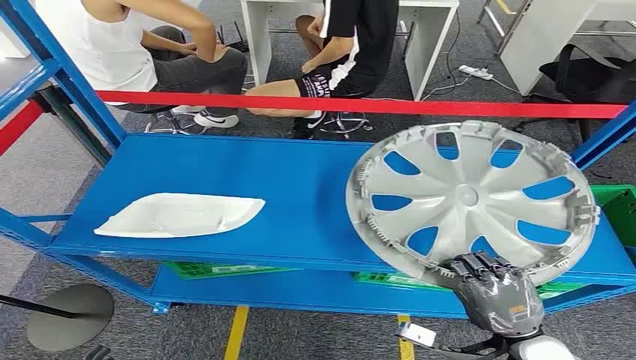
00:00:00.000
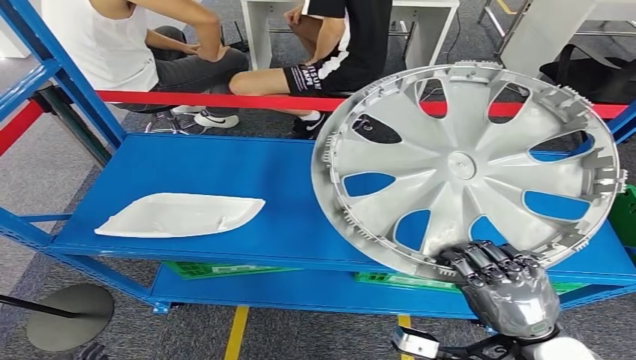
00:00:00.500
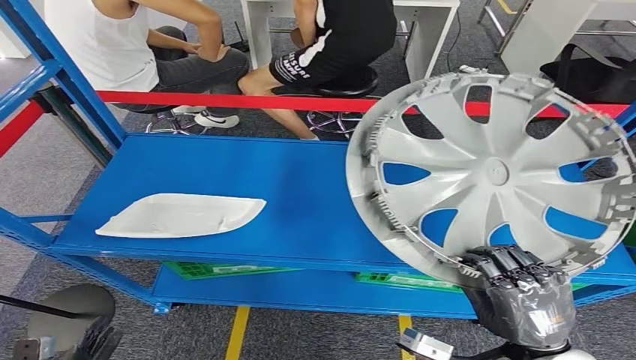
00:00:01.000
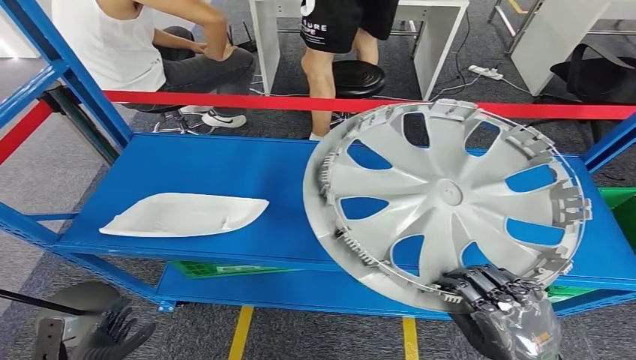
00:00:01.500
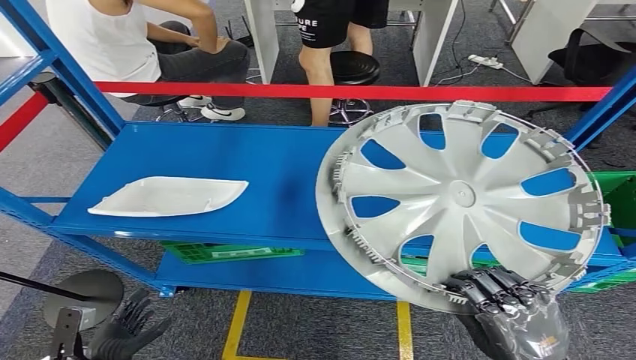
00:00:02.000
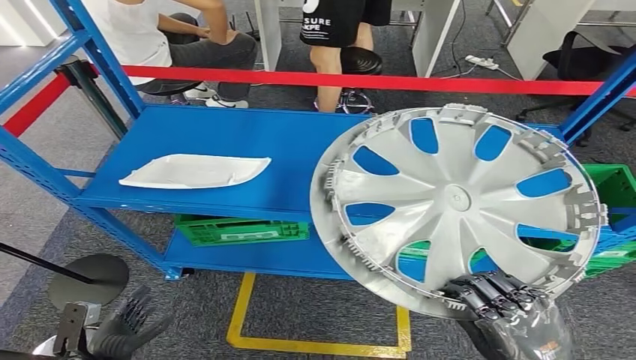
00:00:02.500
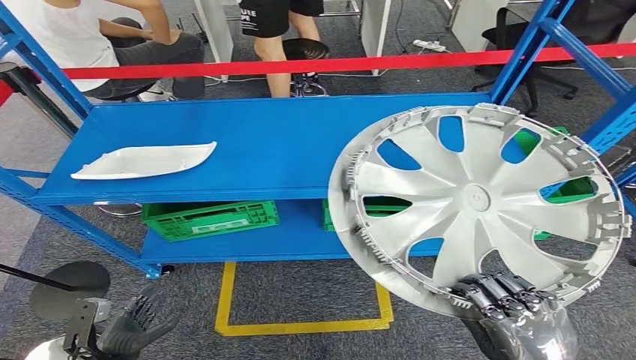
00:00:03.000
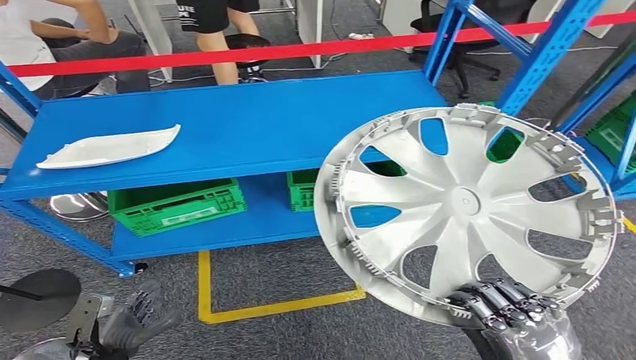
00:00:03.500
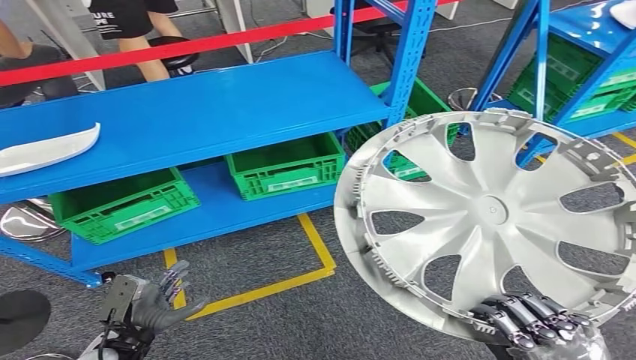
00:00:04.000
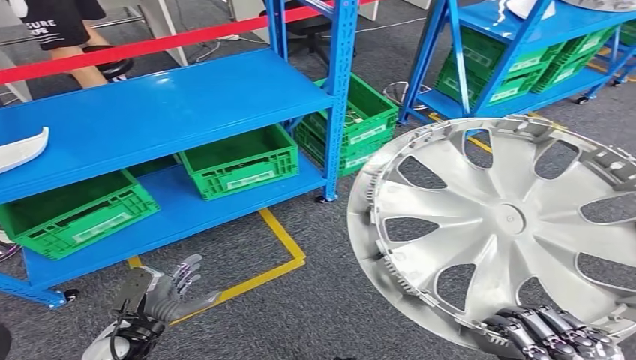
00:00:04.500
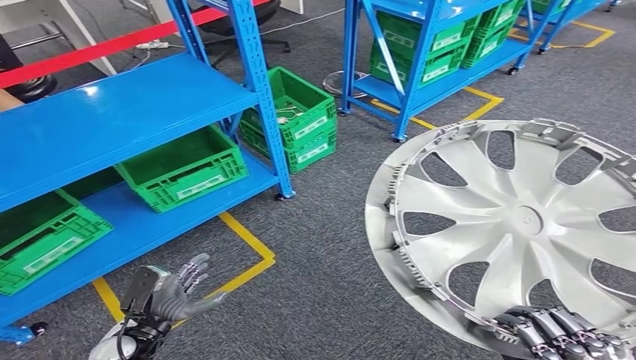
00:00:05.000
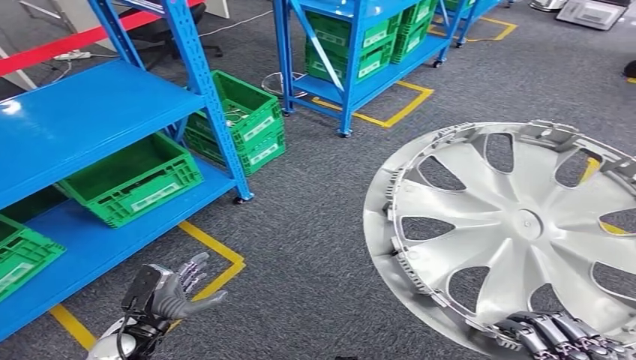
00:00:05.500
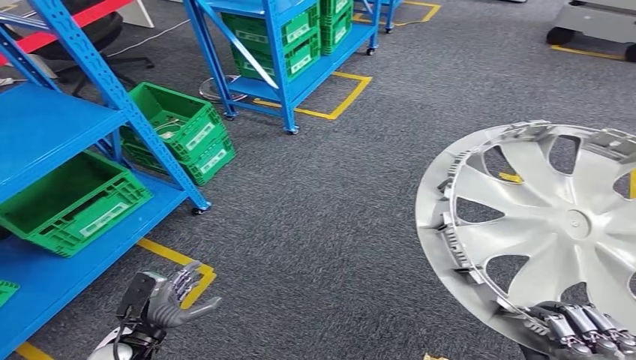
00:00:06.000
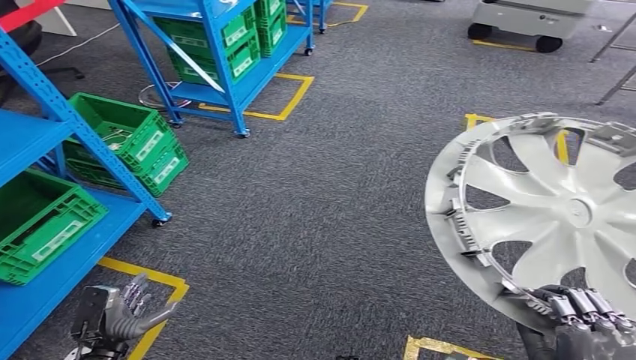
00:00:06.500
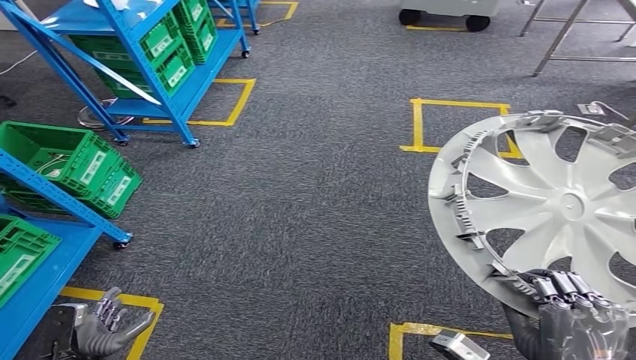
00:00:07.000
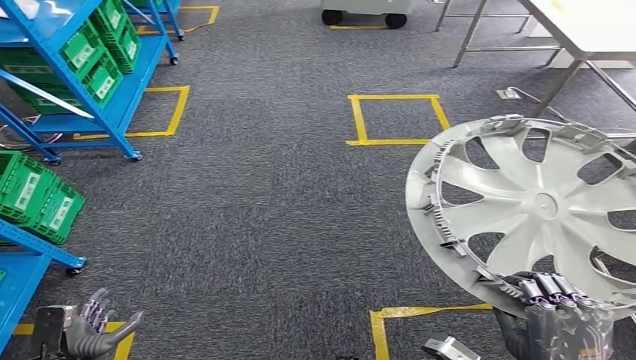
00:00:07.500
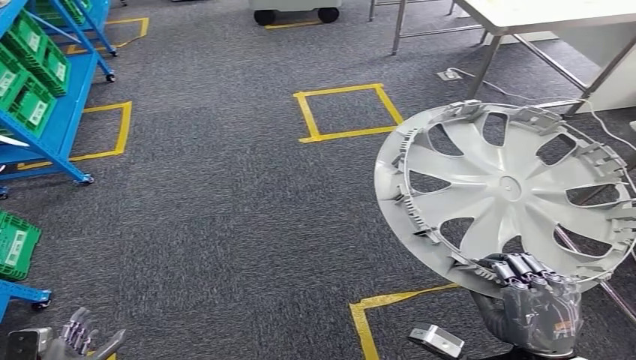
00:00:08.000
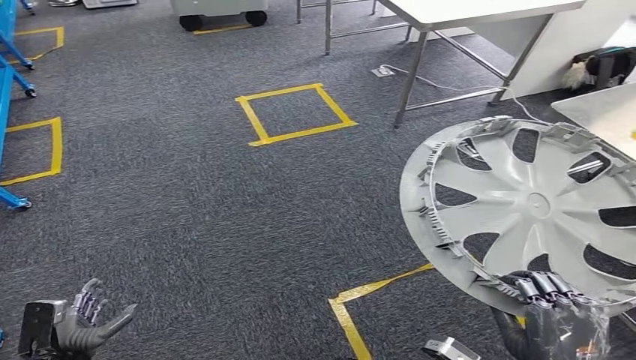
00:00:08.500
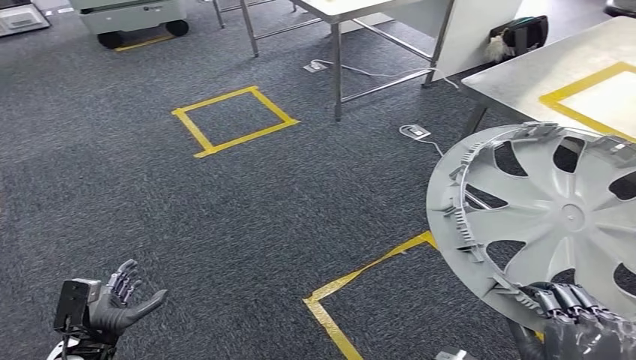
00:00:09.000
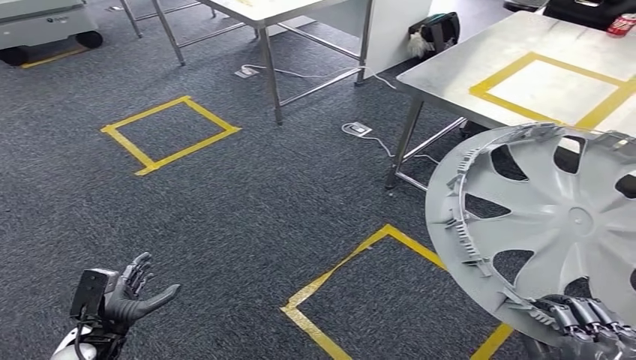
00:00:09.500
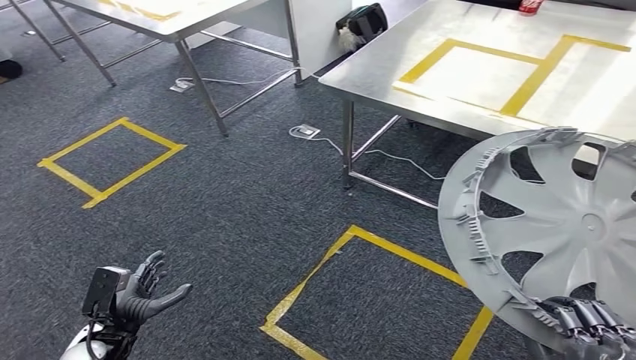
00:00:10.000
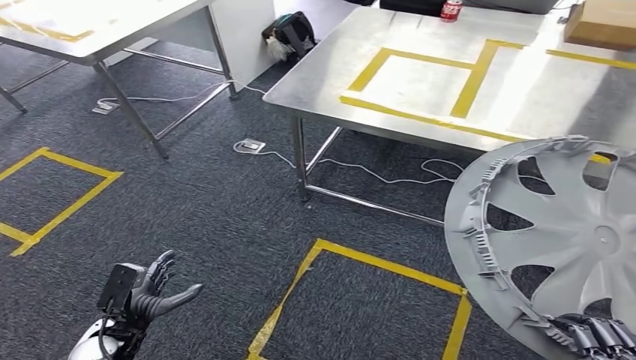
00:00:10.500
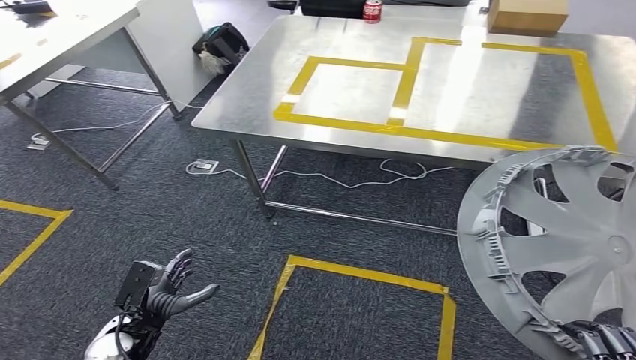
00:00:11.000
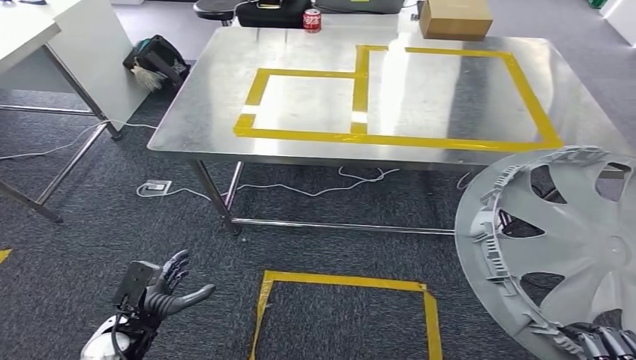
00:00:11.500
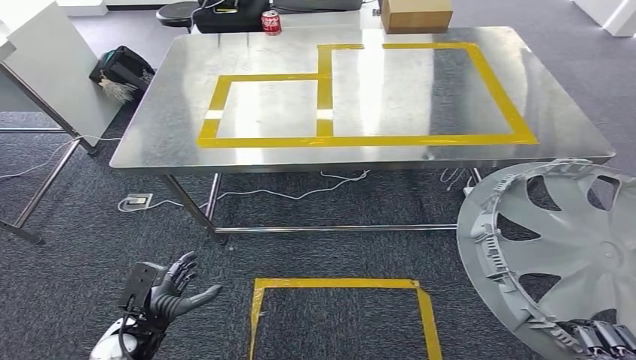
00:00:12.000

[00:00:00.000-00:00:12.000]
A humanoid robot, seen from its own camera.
Step, 00:00:00.000 to 00:00:02.000: Pick up the small component from the shelf.
Step, 00:00:02.500 to 00:00:11.000: Move the small component to the workbench.

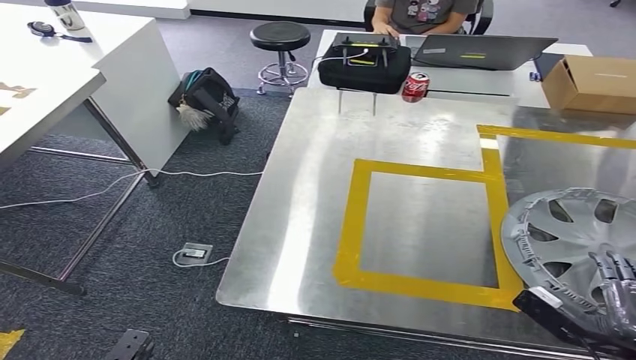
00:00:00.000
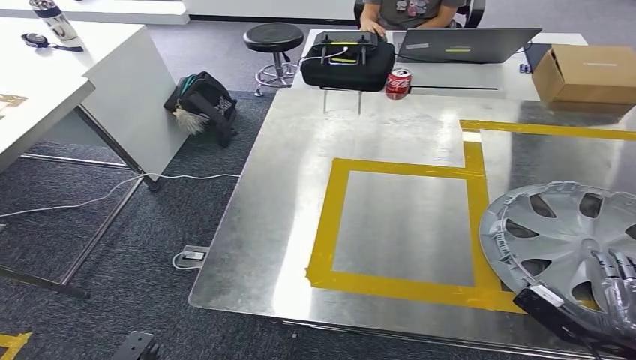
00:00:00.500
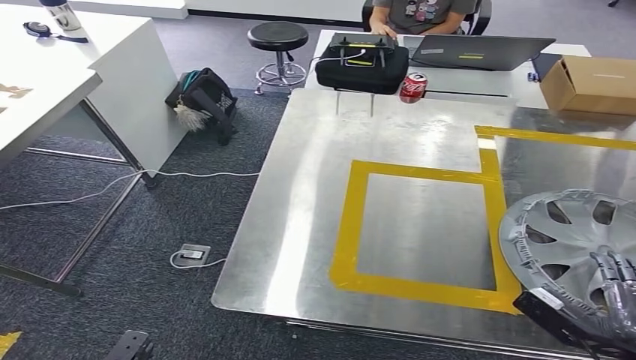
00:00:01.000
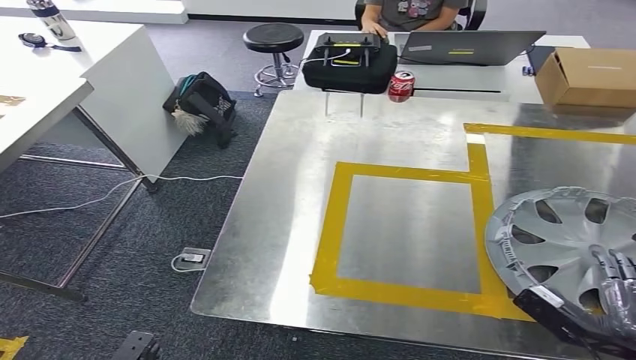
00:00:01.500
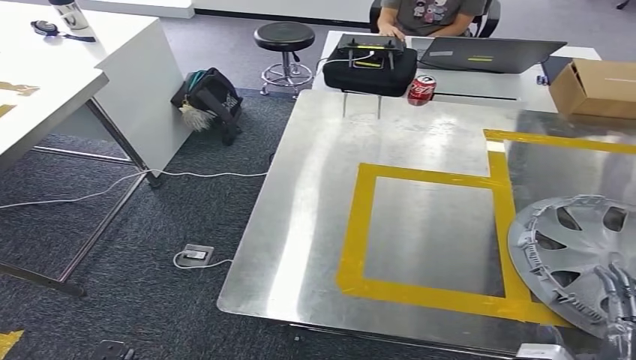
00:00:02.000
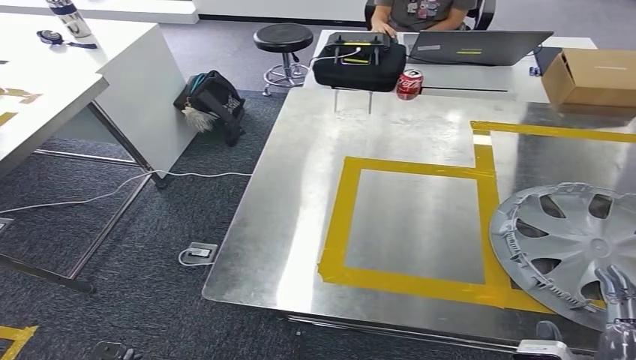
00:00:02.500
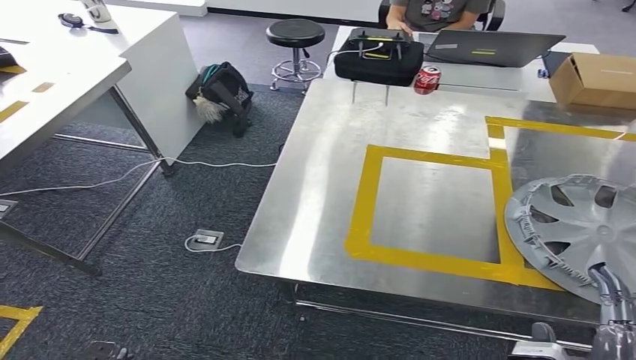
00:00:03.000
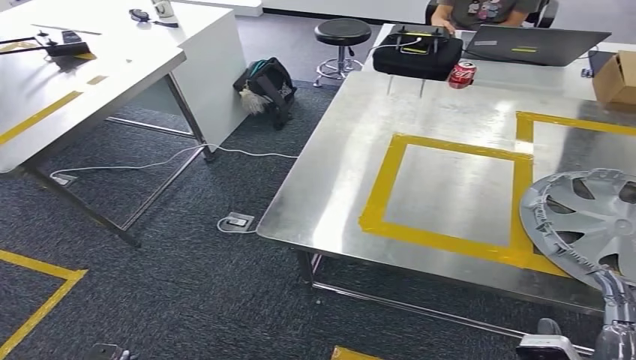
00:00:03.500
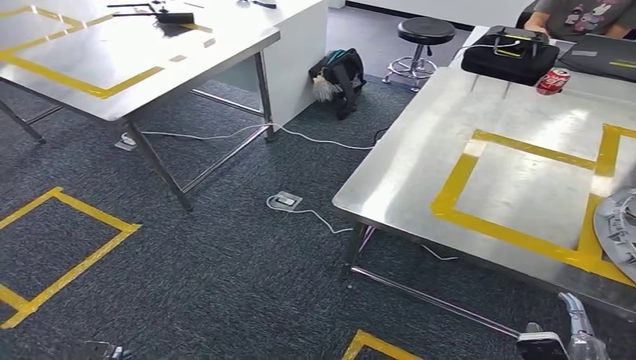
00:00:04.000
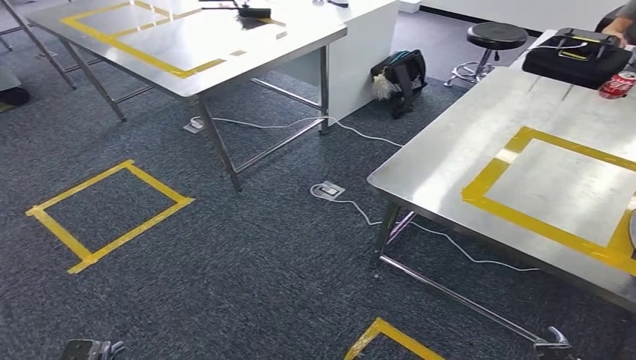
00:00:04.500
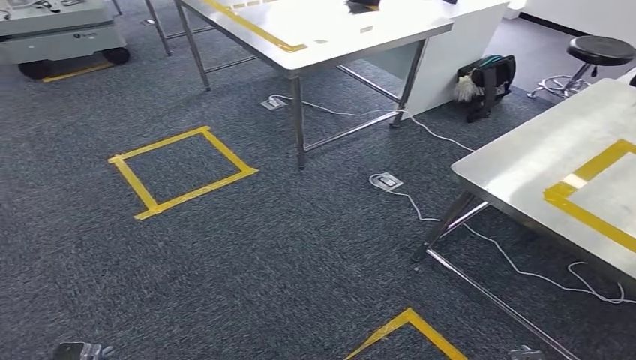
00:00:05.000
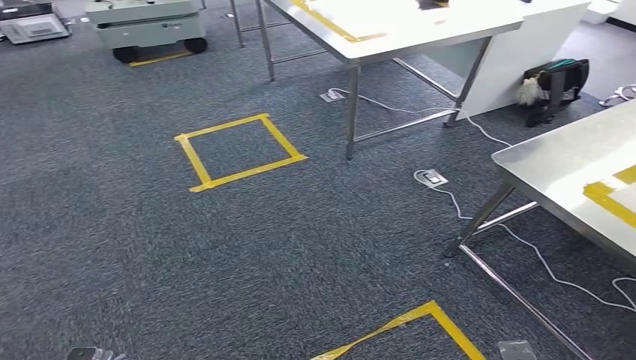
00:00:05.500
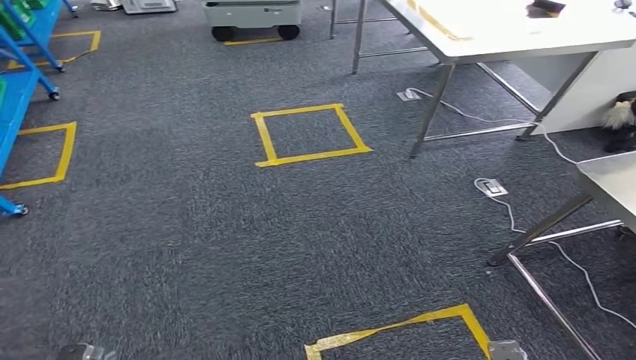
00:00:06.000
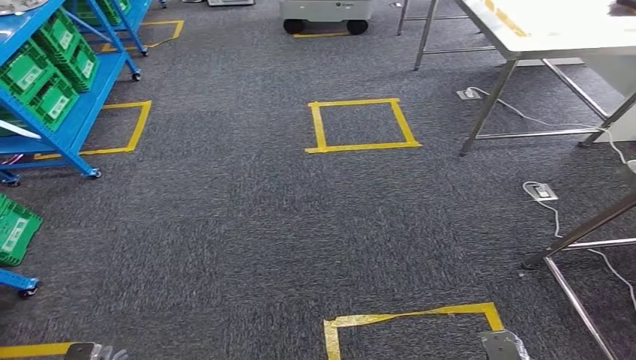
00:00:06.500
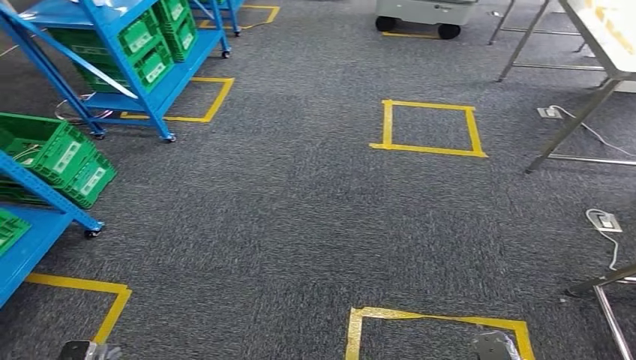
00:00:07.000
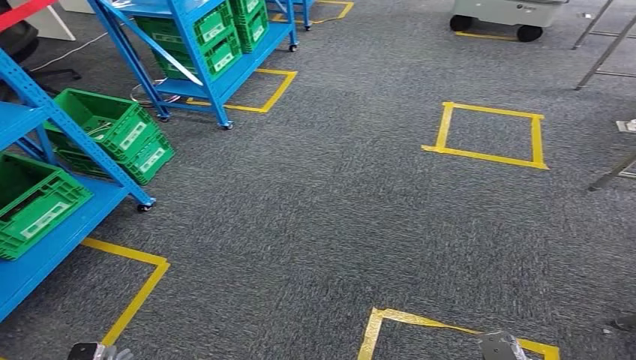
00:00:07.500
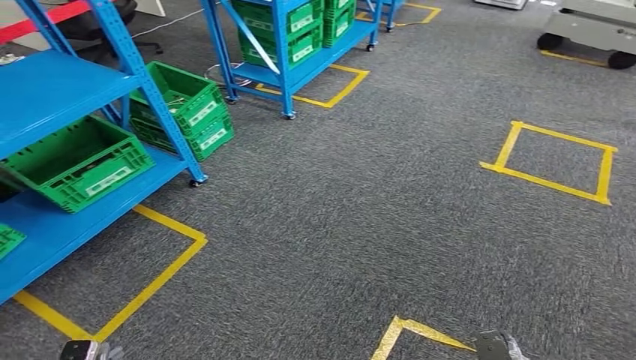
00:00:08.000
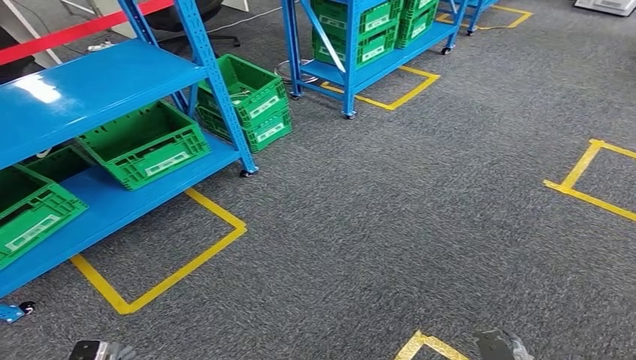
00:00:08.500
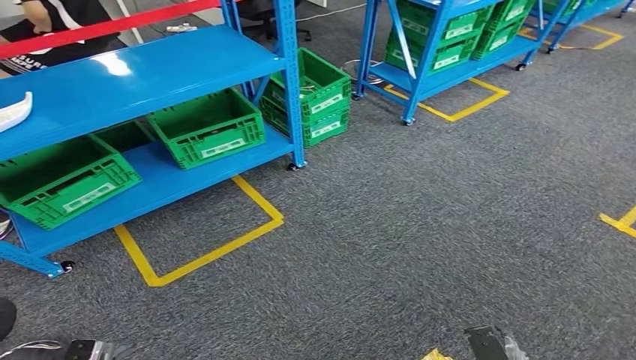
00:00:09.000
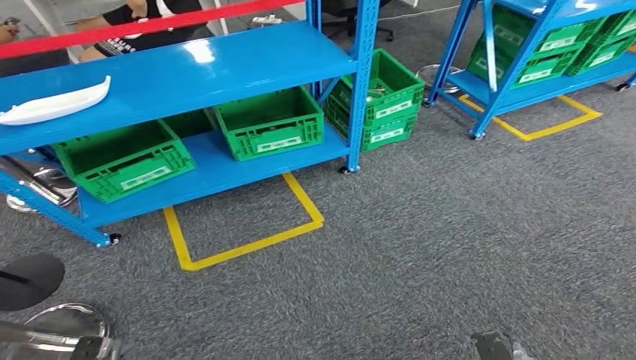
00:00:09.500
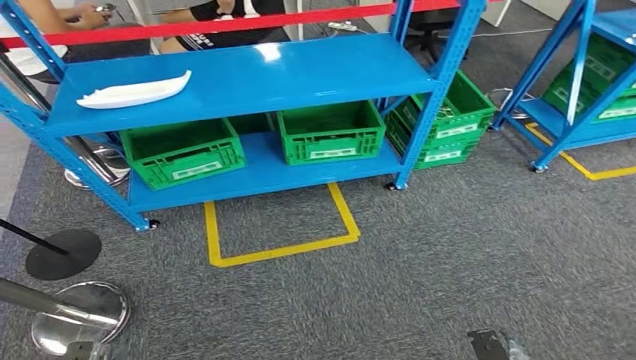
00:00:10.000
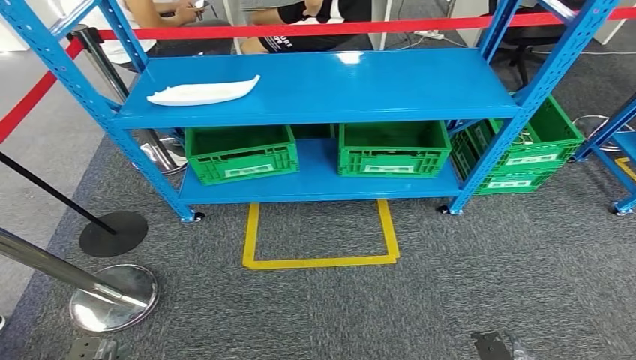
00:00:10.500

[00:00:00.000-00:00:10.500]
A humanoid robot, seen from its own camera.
Step, 00:00:01.500 to 00:00:10.500: Return to the initial position at the workbench.
00:00:00.000 to 00:00:02.000: The right hand heads to the left and backward, covering approximately 10 cm.
